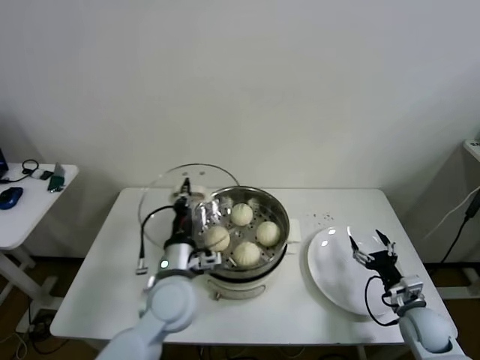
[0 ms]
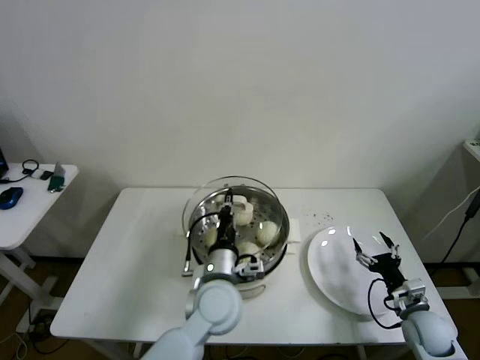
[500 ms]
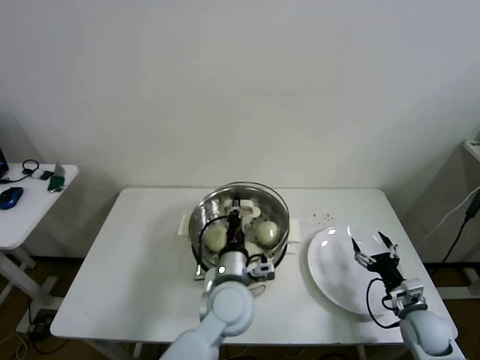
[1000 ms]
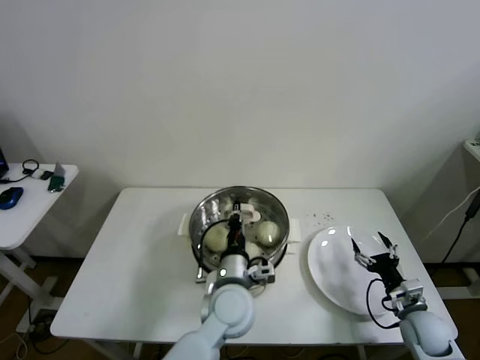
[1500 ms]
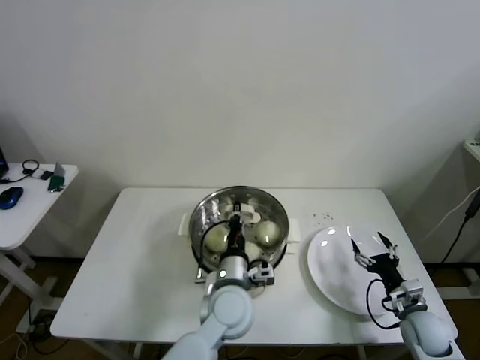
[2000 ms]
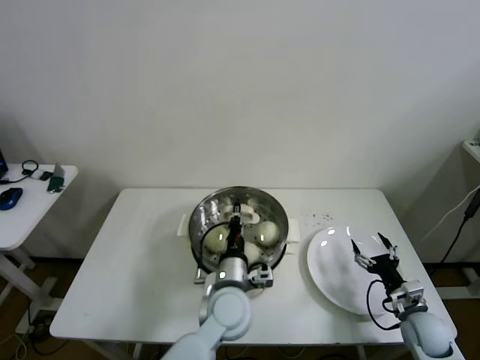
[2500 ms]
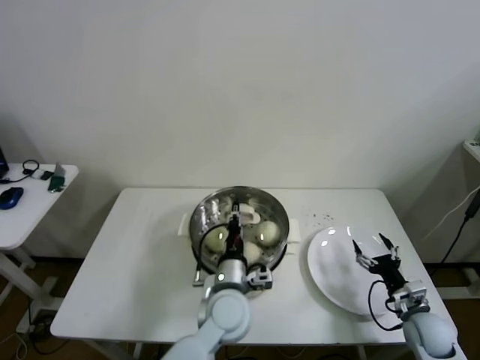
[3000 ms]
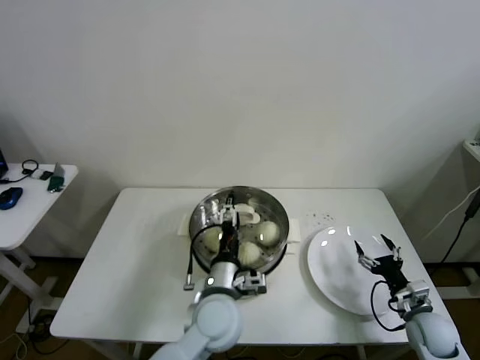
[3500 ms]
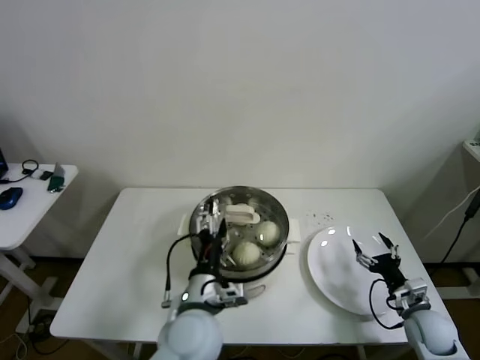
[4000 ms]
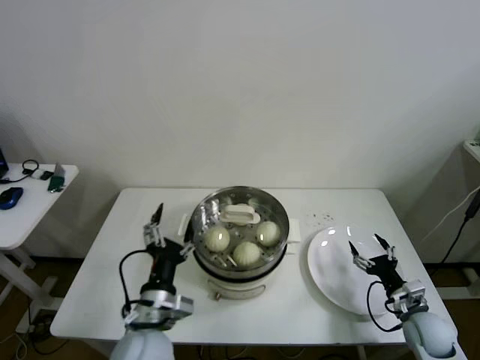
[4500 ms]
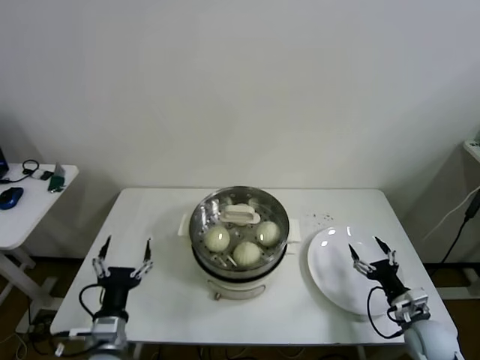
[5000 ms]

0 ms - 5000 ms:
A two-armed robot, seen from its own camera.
Step, 0 ms - 2500 ms: Place the pot lid on the steamer with left gripper.
0 ms - 2500 ms: The left gripper moves to the right and downward, approximately 15 cm.
2500 ms - 5000 ms: The left gripper heads to the left and backward, covering about 25 cm, and opens up.

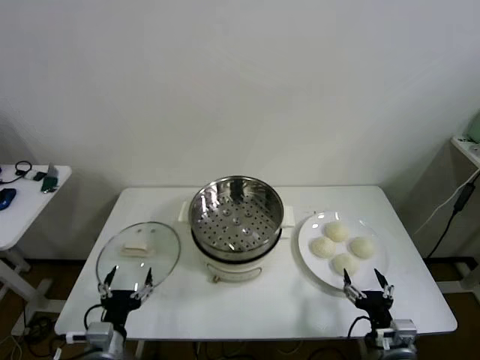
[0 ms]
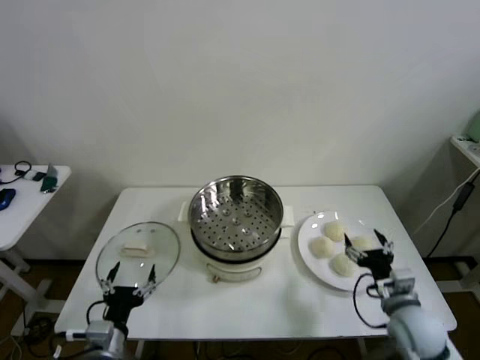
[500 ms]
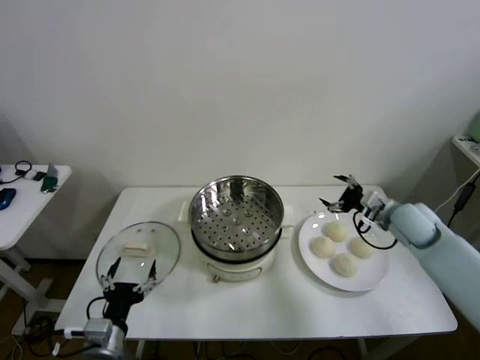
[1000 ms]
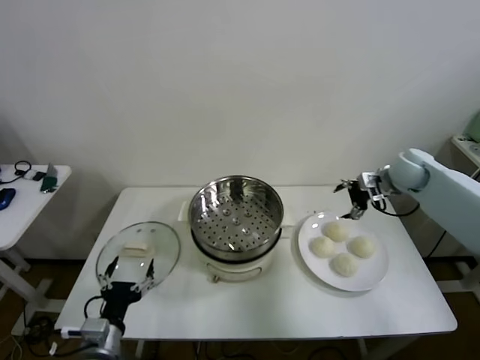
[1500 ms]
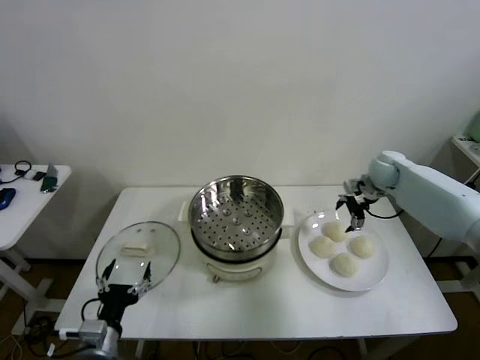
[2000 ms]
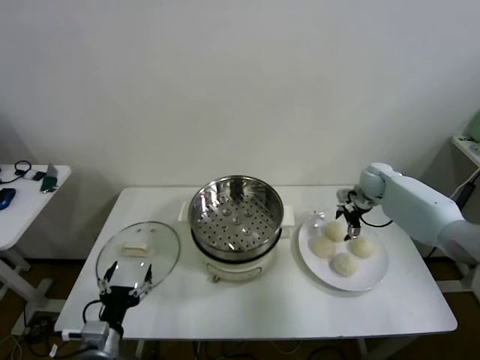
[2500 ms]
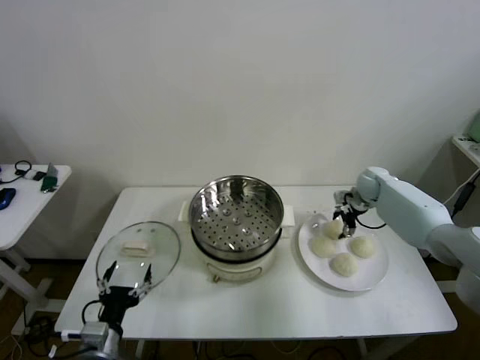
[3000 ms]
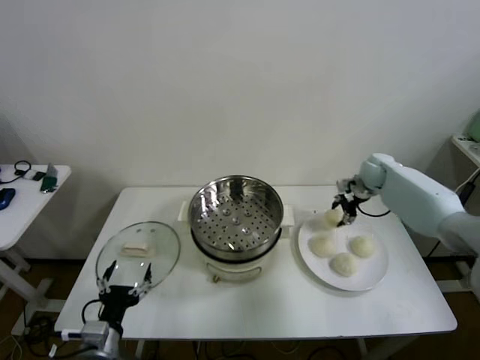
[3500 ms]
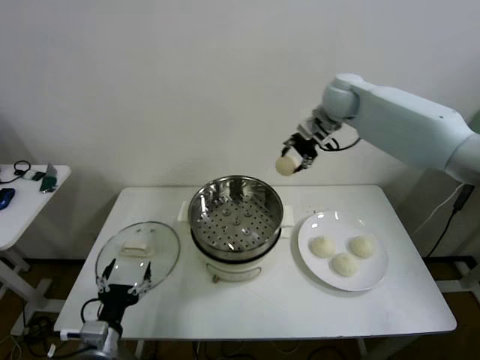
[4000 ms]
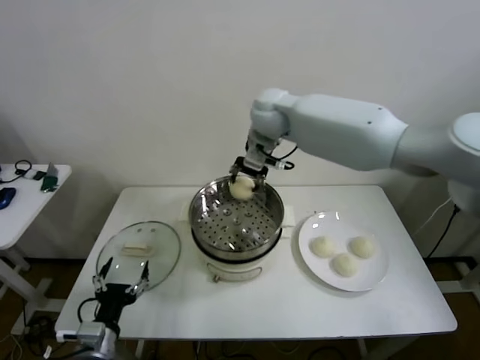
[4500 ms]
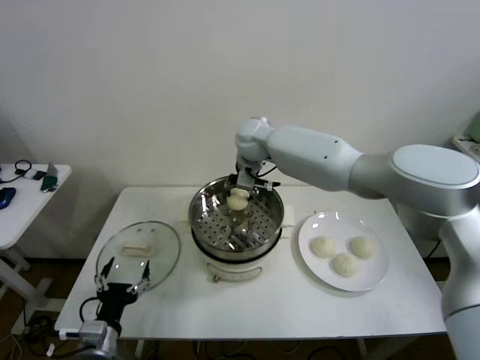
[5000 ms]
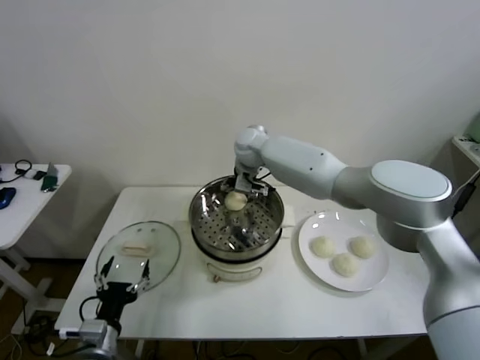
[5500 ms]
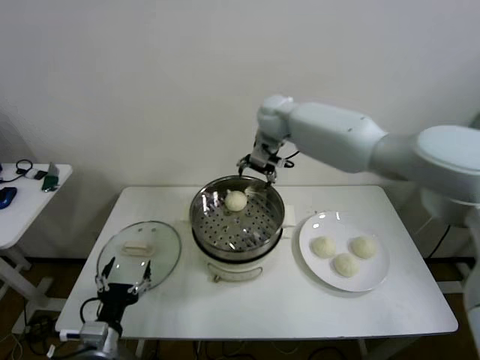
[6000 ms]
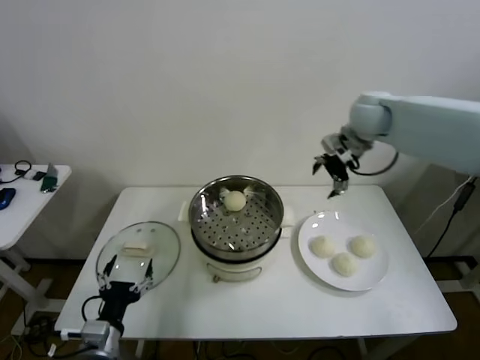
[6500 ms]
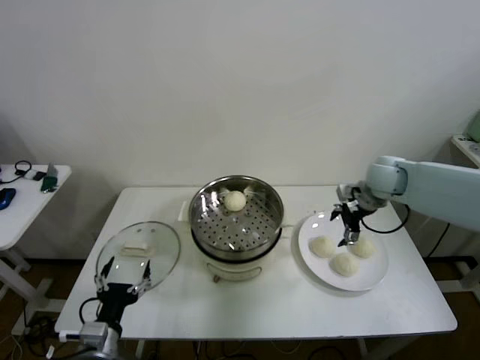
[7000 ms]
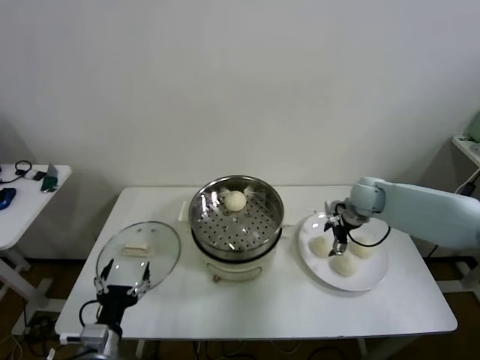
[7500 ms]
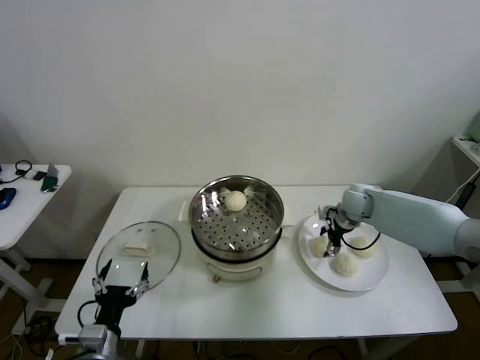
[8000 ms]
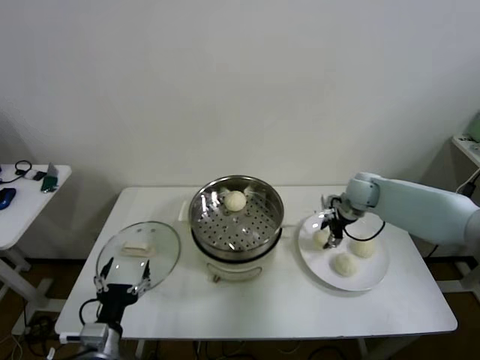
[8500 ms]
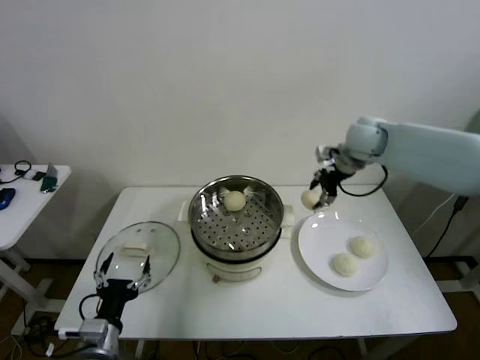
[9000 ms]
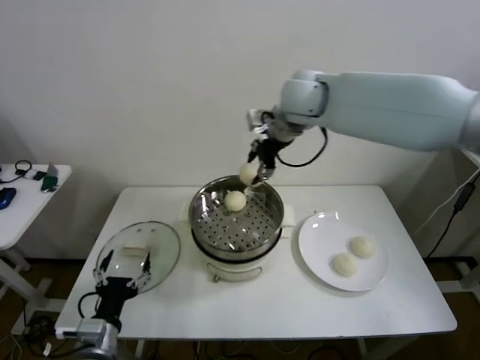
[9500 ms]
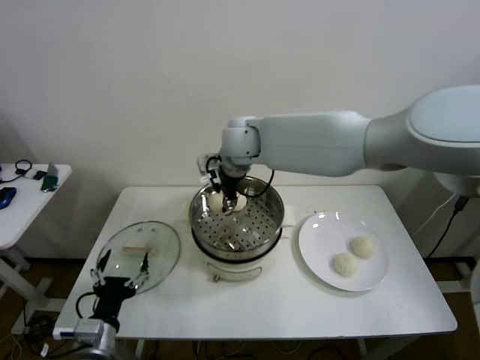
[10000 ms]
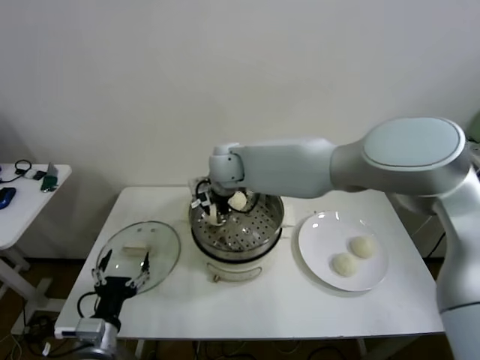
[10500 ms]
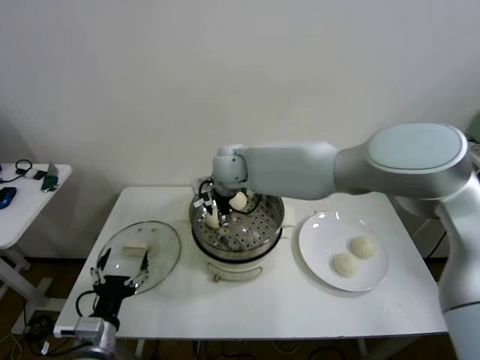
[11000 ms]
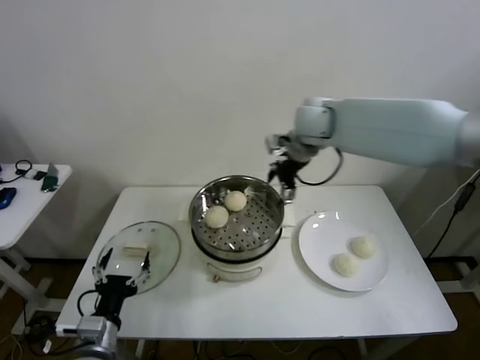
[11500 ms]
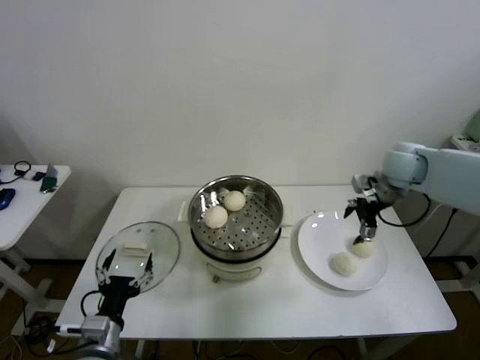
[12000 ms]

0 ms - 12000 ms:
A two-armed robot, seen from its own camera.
Step, 0 ms - 3000 ms: Grasp the baozi in the plate with right gripper.
Step, 3500 ms - 5500 ms: Place the baozi on the steamer with right gripper.
Step, 6000 ms - 8000 ms: Grasp the baozi in the plate with right gripper.
Step, 8500 ms - 10500 ms: Place the baozi on the steamer with right gripper.
2000 ms - 4000 ms: The right gripper goes roughly 35 cm to the left and upward, and closes up.
4000 ms - 6000 ms: The right gripper travels downward and back again, some 15 cm each way, and opens up.
6000 ms - 8000 ms: The right gripper goes some 30 cm downward and to the right, and closes its fingers.
8000 ms - 10000 ms: The right gripper is displaced to the left and upward by roughly 35 cm, and closes its fingers.
10000 ms - 12000 ms: The right gripper moves to the right, approximately 40 cm, and opens up.

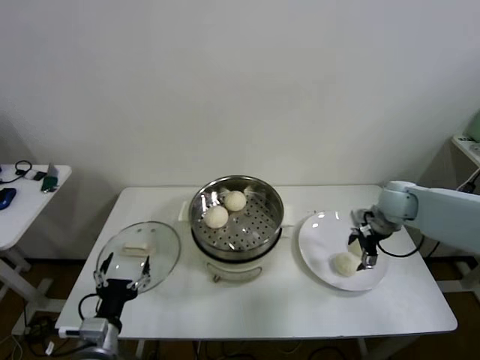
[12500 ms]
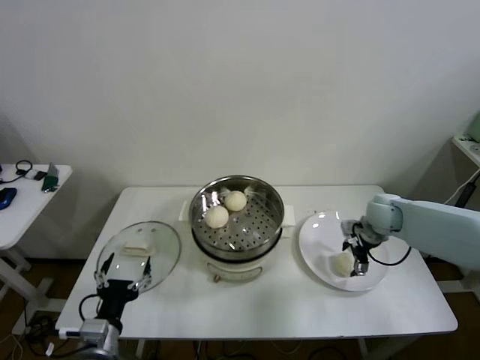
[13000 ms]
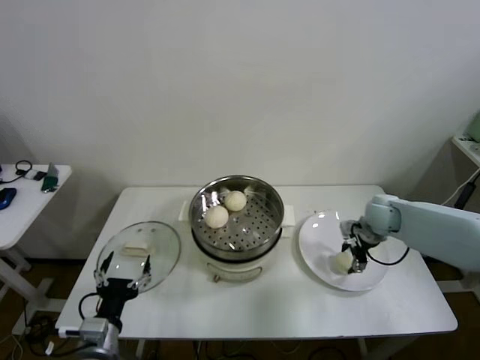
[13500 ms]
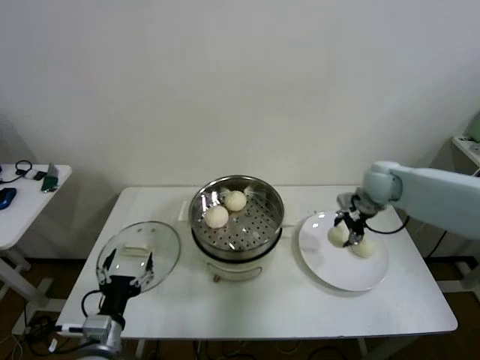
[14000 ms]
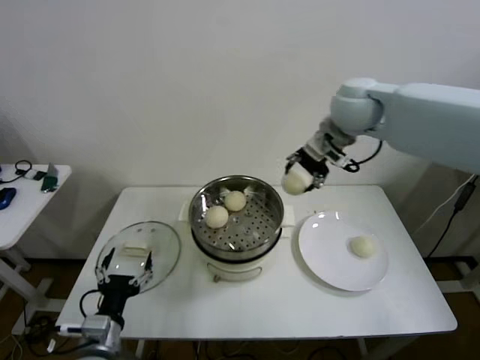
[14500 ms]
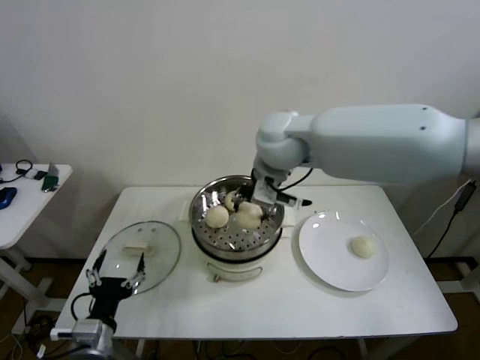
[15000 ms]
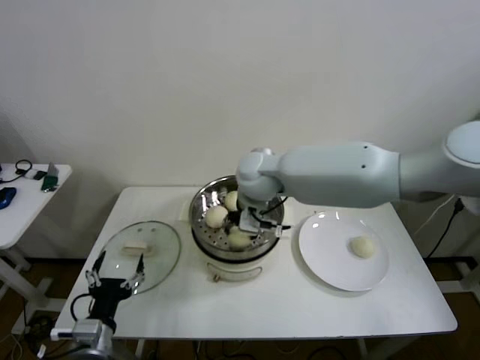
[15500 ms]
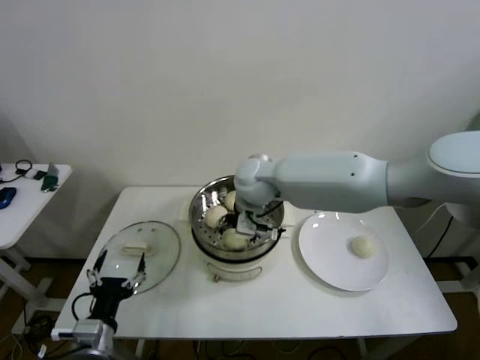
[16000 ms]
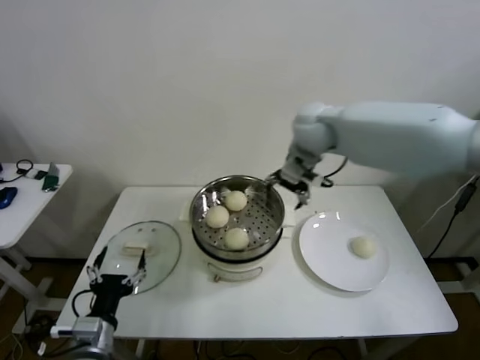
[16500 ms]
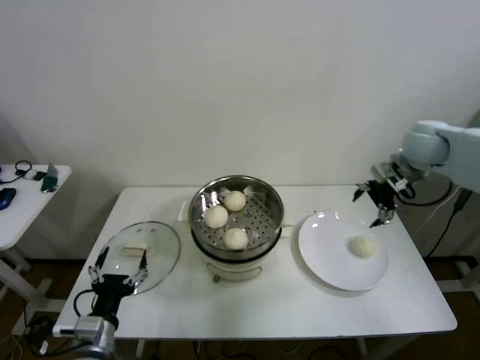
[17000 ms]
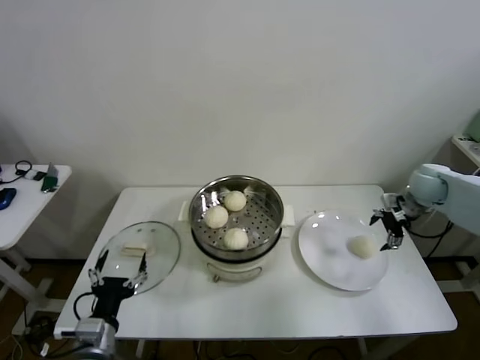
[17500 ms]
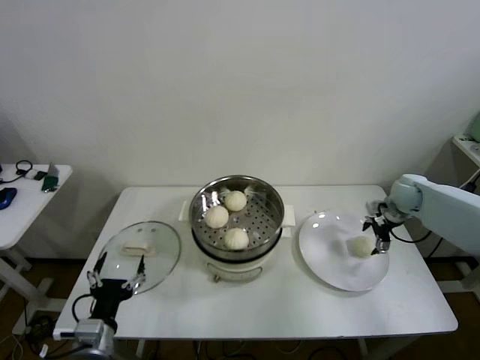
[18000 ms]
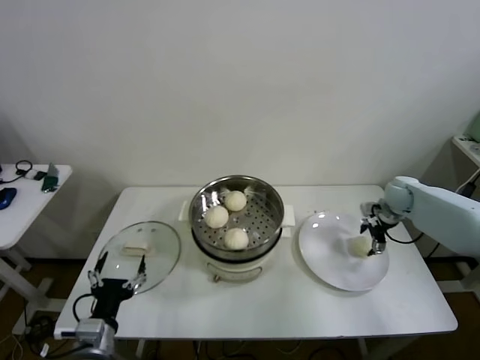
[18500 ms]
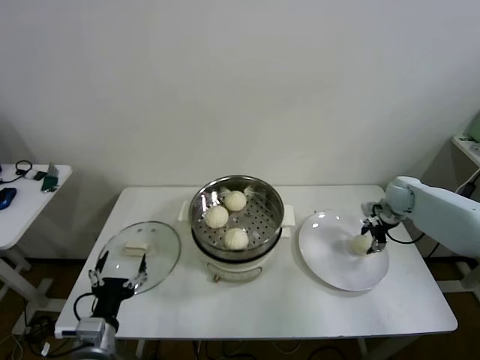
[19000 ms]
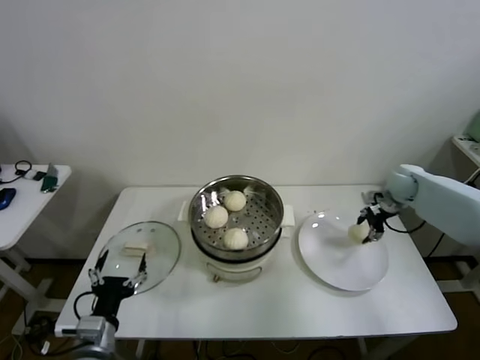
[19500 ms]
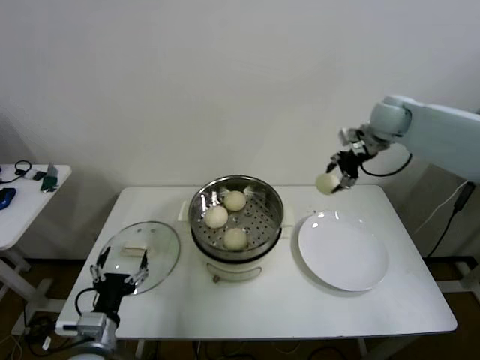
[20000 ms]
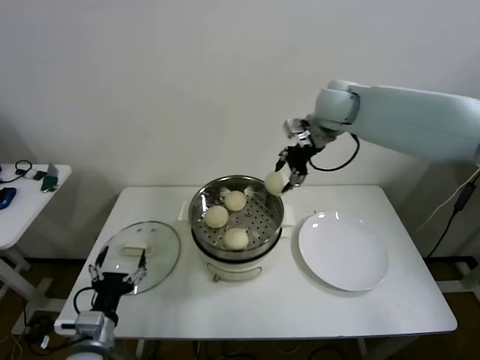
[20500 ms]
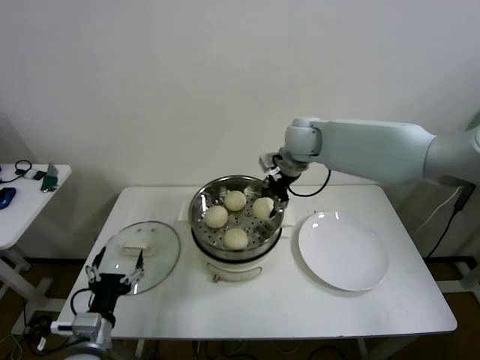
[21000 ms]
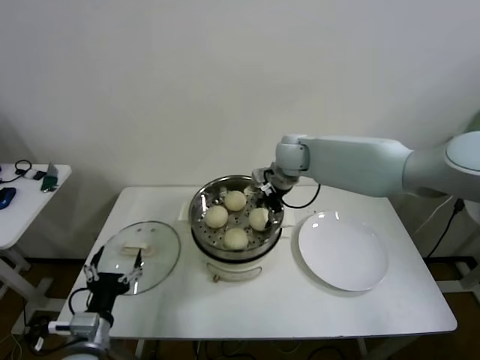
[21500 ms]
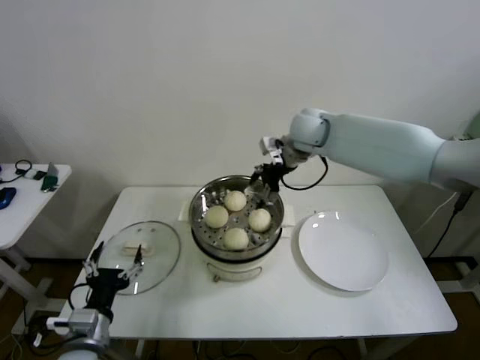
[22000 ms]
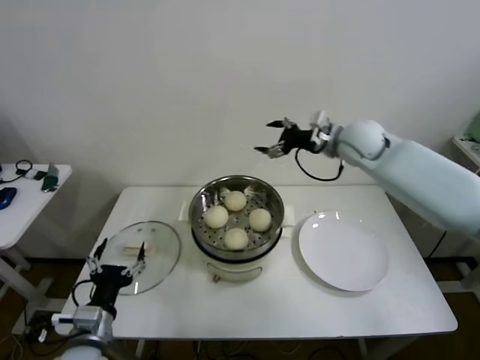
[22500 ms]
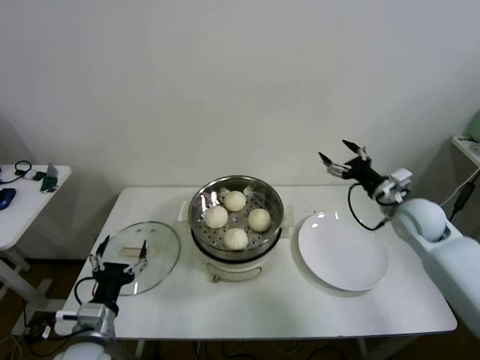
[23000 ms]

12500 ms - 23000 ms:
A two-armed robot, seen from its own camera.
Step, 13500 ms - 15500 ms: Place the baozi on the steamer with right gripper.
Step, 16000 ms - 18500 ms: Grasp the baozi in the plate with right gripper.
Step, 19000 ms - 21500 ms: Place the baozi on the steamer with right gripper.
12500 ms - 14500 ms: The right gripper shifts some 35 cm upward and to the left, and closes.
14500 ms - 16500 ms: The right gripper goes roughly 5 cm downward, travels to the left and back again, about 15 cm each way, and opens.
16500 ms - 19000 ms: The right gripper travels downward and to the right by approximately 35 cm, and closes its fingers.
19000 ms - 21000 ms: The right gripper goes about 35 cm to the left and upward.
21000 ms - 23000 ms: The right gripper shifts about 30 cm to the right, backward and downward, and opens its fingers.
